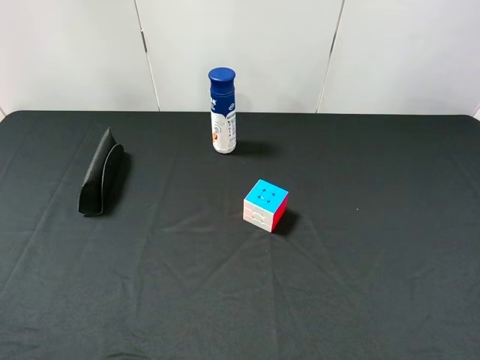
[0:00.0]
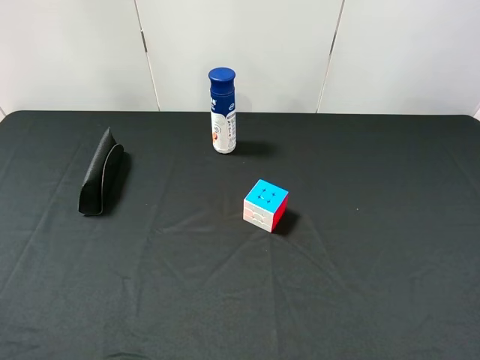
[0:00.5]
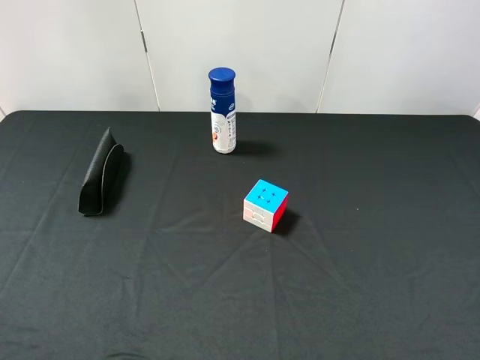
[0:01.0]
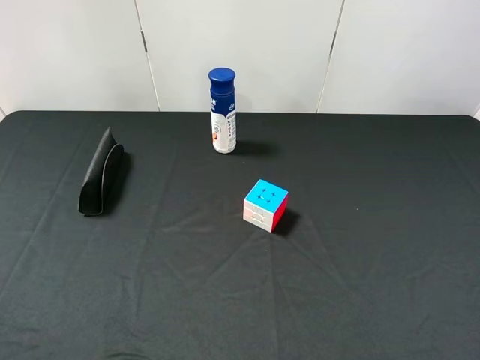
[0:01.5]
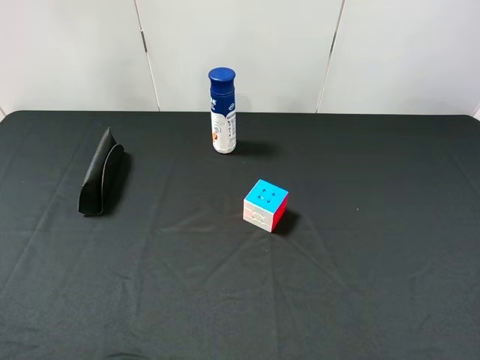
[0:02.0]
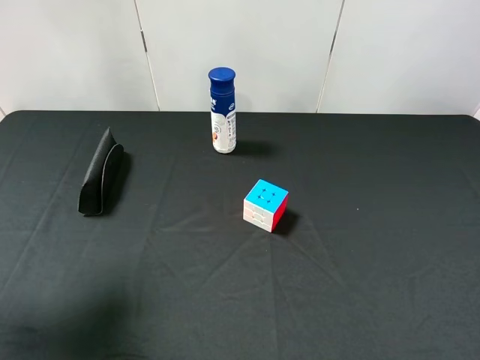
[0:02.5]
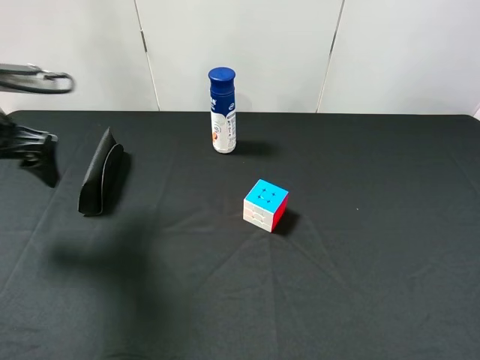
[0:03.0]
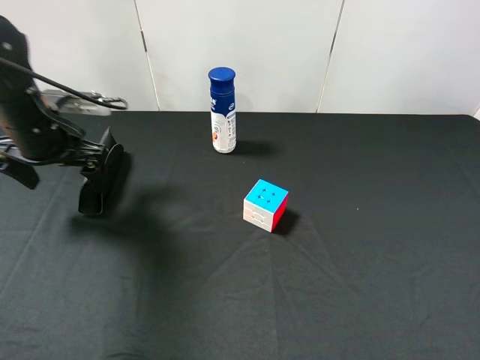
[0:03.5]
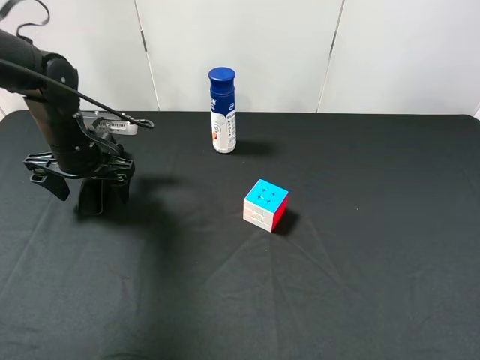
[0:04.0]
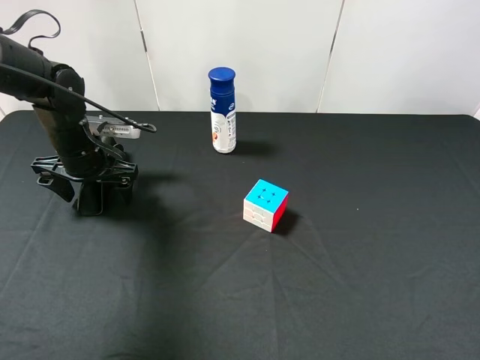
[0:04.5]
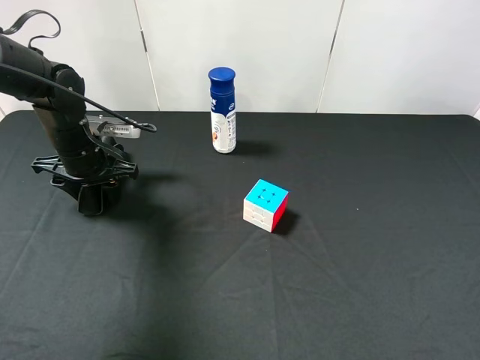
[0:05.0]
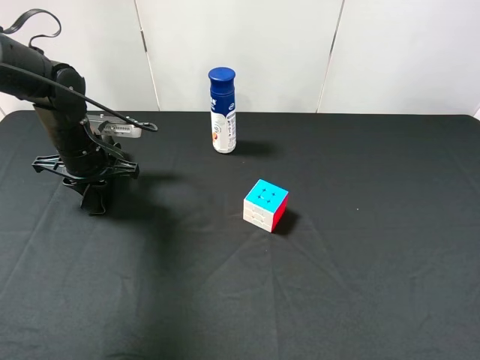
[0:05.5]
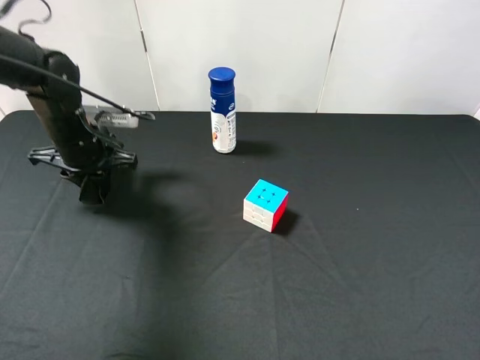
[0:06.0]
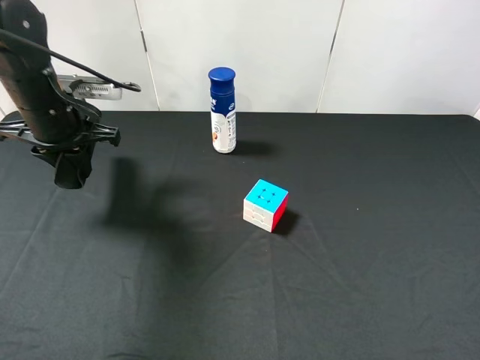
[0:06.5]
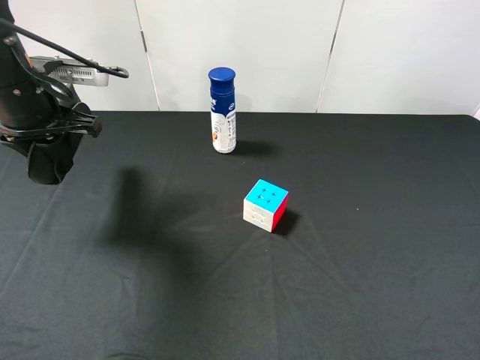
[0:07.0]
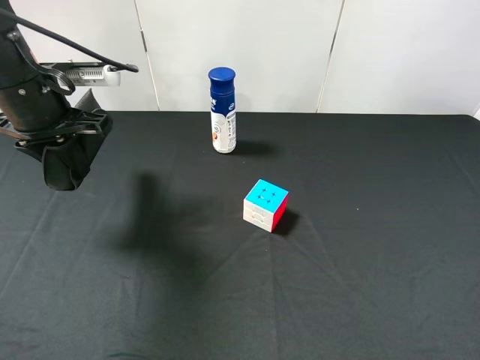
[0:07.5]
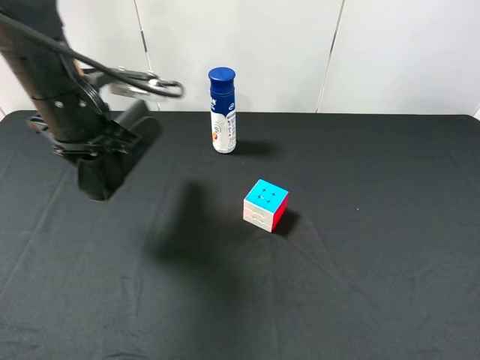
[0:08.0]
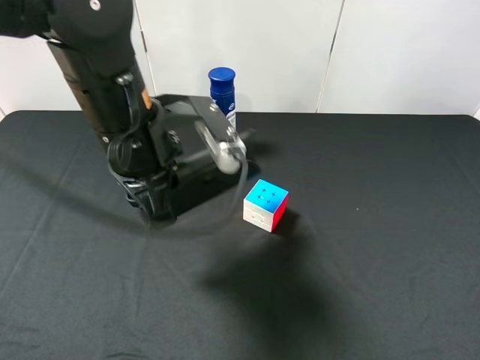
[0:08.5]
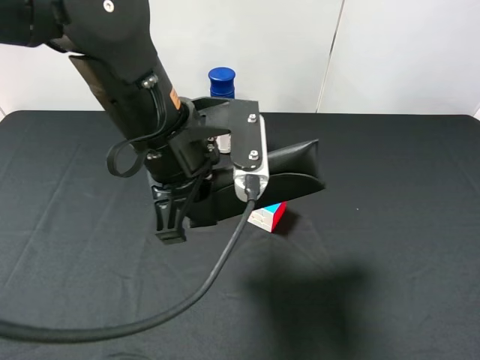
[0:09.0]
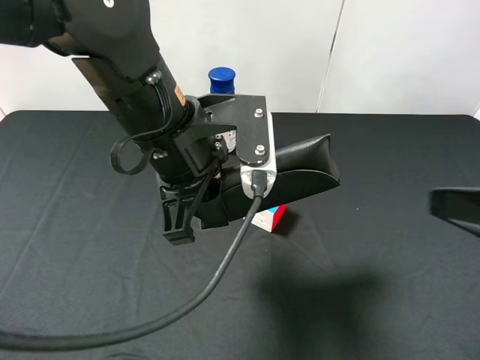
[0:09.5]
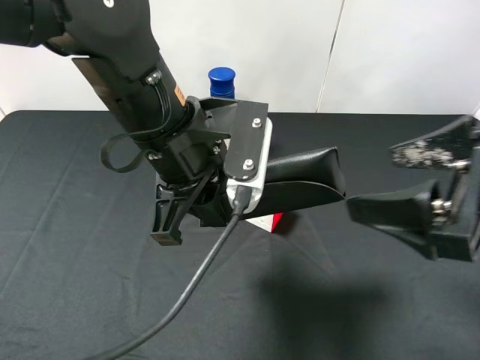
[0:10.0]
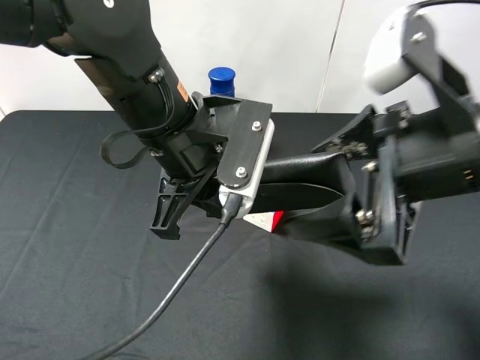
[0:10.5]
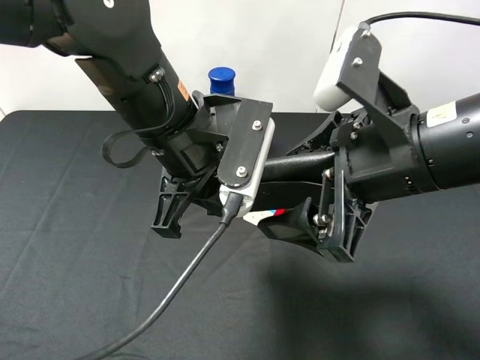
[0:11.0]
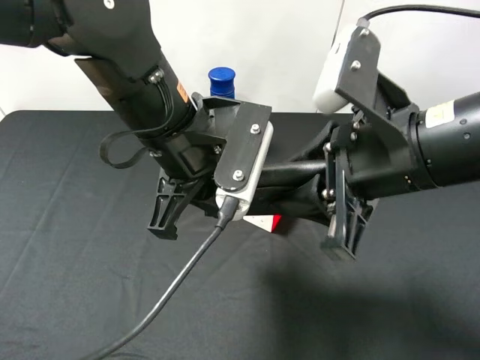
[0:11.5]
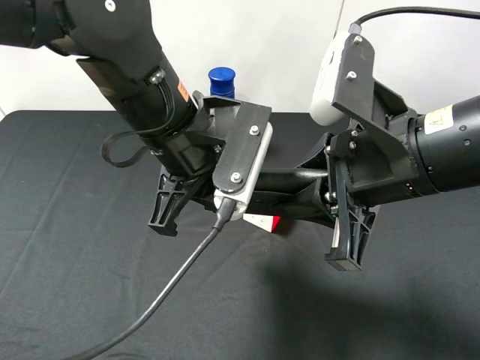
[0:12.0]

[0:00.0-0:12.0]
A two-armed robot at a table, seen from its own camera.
Task of the whole recording: use the left gripper to pick up the item and transfer it from the left gripper to the right gripper.
2.0 to 4.0 s: The left gripper heads forward and downward, covering roughly 35 cm.
4.0 to 6.0 s: The left gripper closes.
6.0 to 8.0 s: The left gripper shifts approximately 15 cm upward, backward and to the right.
8.0 to 10.0 s: The right gripper moves forward and to the left, some 15 cm. Meanwhile the left gripper heads to the right and backward, covering some 15 cm.
10.0 to 12.0 s: The right gripper shifts some 5 cm to the left, and closes up.

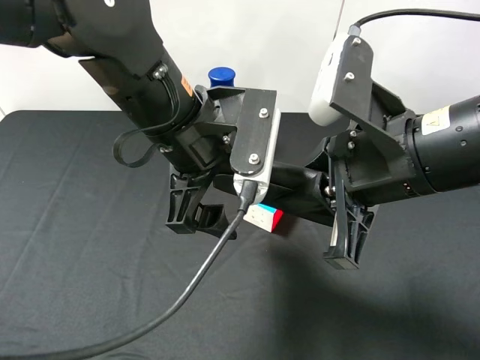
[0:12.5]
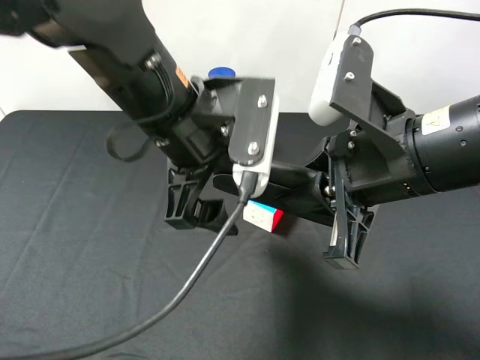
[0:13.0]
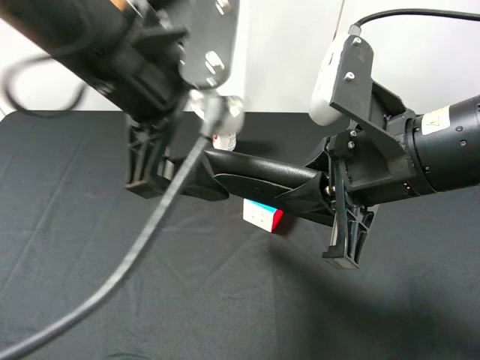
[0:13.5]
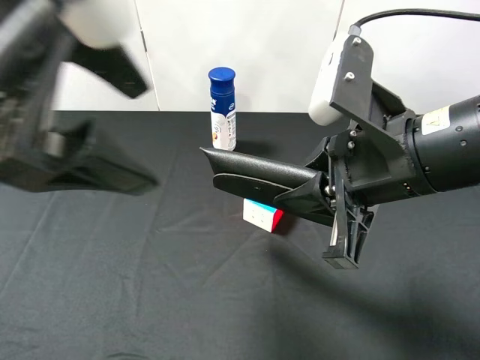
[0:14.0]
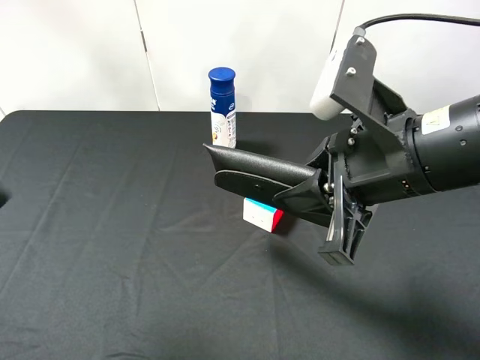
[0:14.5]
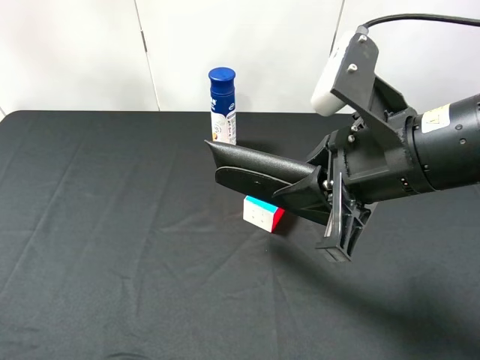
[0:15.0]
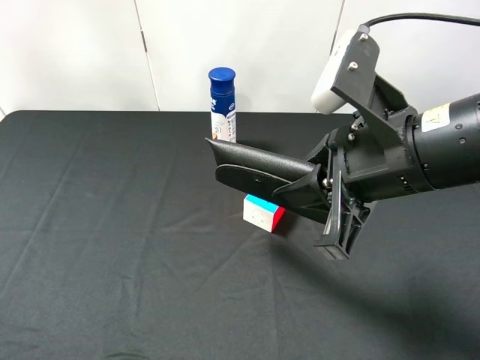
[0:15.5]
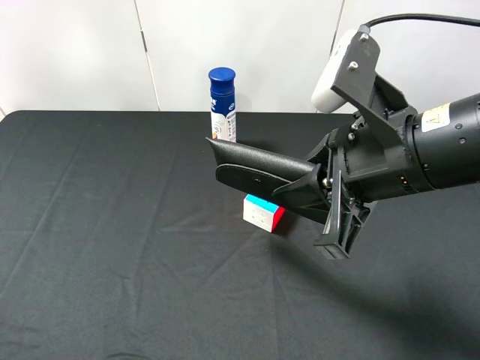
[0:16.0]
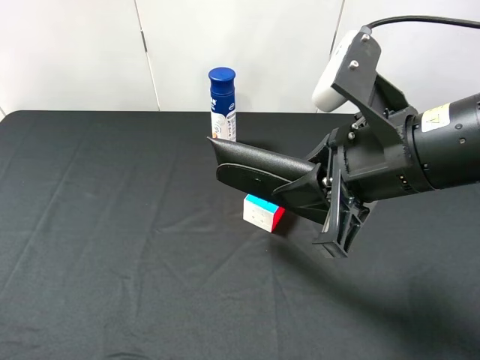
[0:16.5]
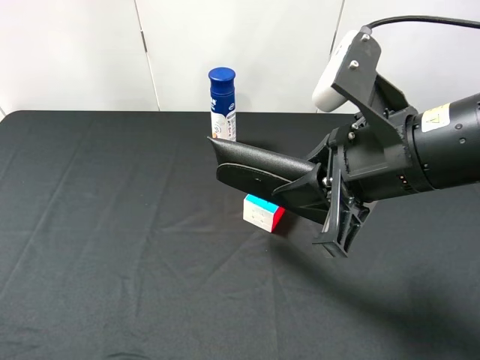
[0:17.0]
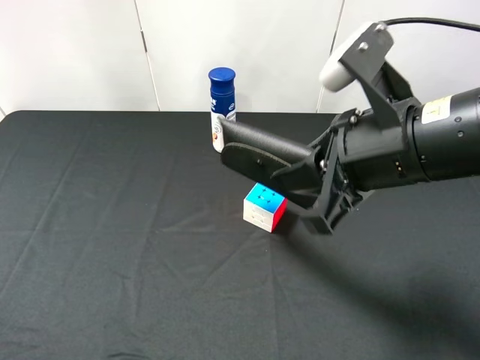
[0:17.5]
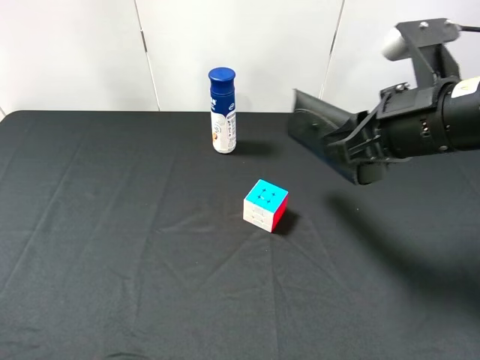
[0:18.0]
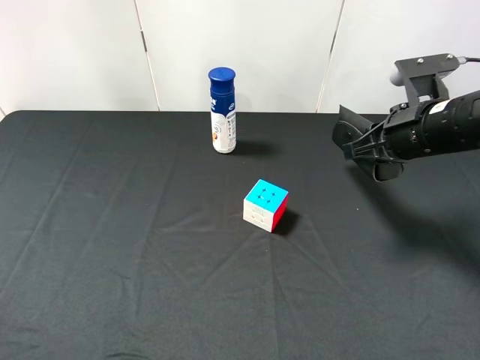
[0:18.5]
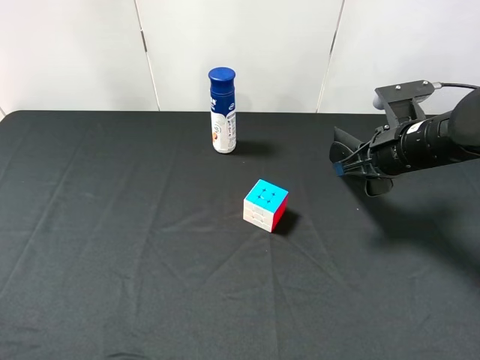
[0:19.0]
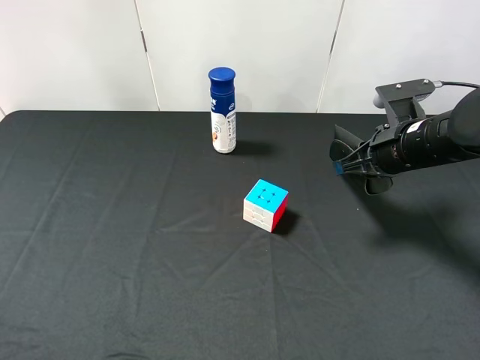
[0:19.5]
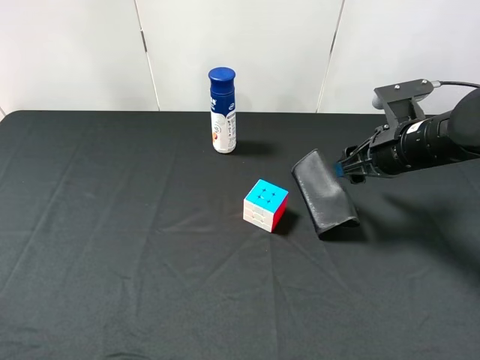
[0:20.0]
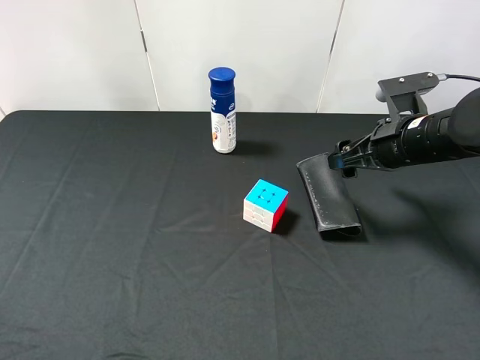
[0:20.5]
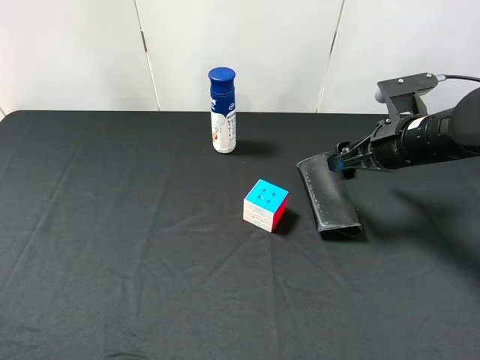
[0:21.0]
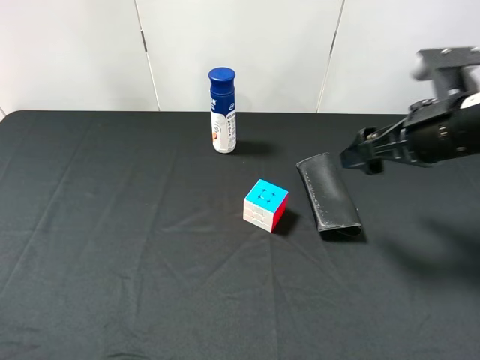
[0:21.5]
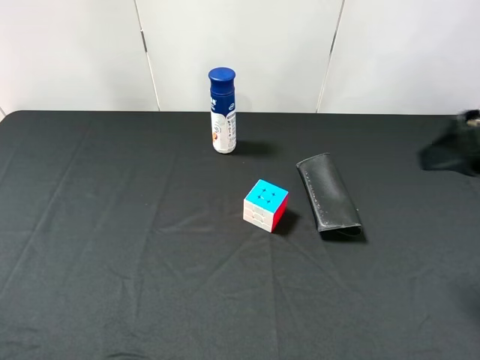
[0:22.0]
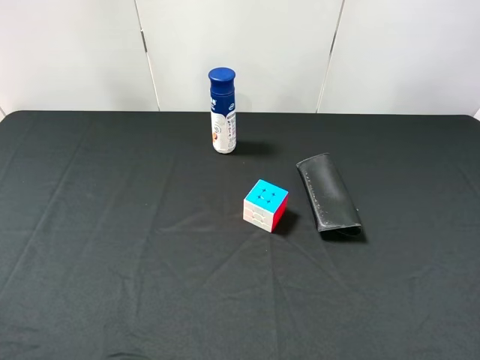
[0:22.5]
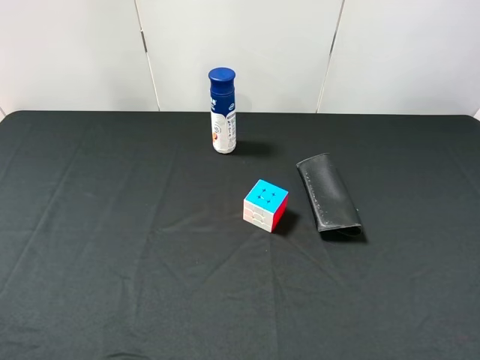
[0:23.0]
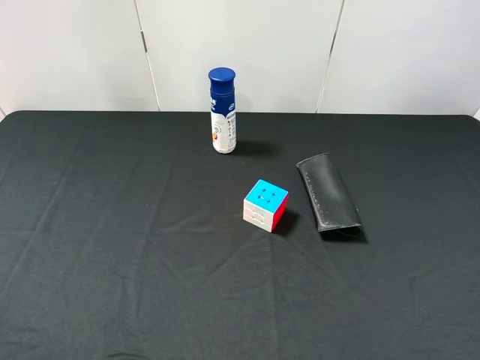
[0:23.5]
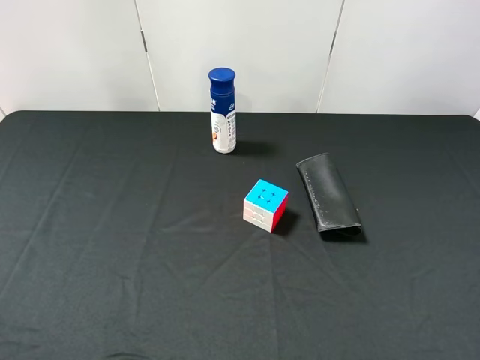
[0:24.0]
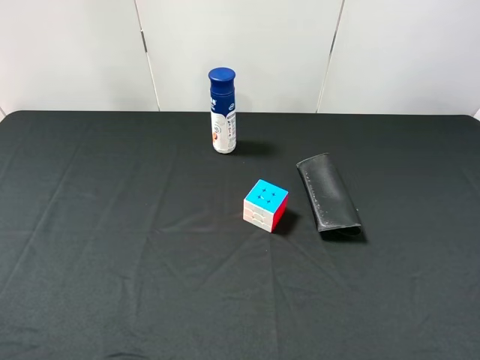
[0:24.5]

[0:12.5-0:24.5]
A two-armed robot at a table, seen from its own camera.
Task of the whole recording: use the left gripper to pick up the item and transfer it from the left gripper to the right gripper.
12.5 to 14.5 s: The left gripper heads to the left, backward and upward, covering some 25 cm.
14.5 to 16.5 s: The left gripper travels backward, to the left and downward by about 15 cm.
16.5 to 18.5 s: The right gripper travels forward, to the right and downward by some 15 cm.
18.5 to 20.5 s: The right gripper opens up.
20.5 to 22.5 s: The right gripper goes some 25 cm backward and upward.

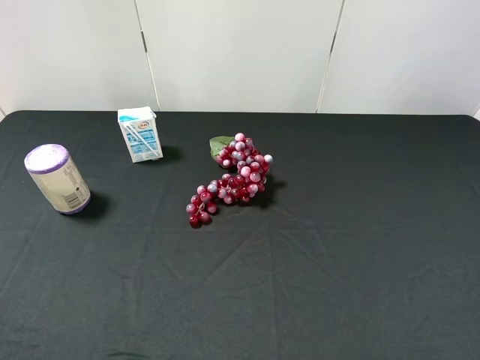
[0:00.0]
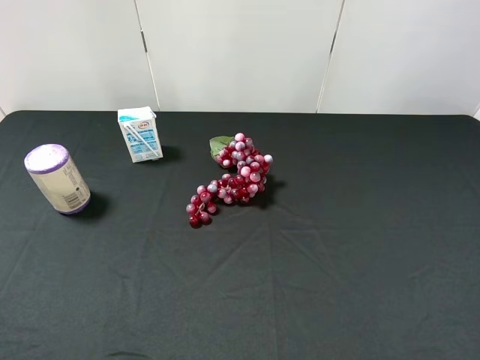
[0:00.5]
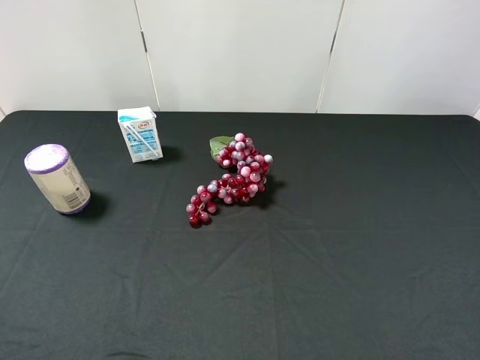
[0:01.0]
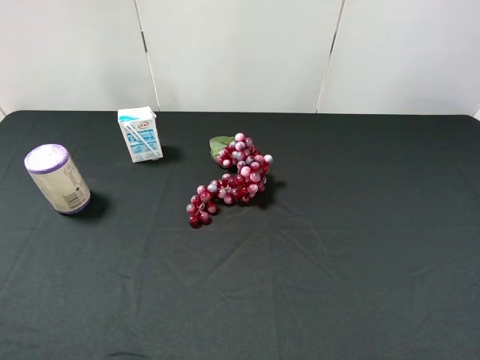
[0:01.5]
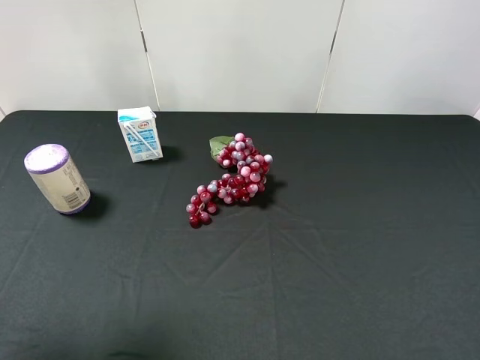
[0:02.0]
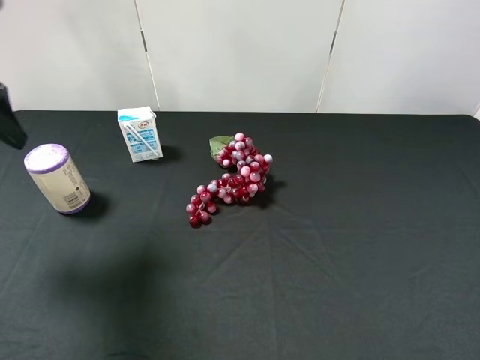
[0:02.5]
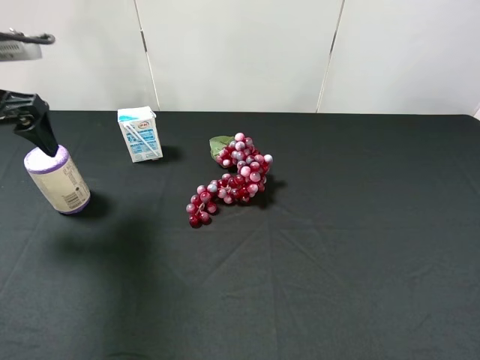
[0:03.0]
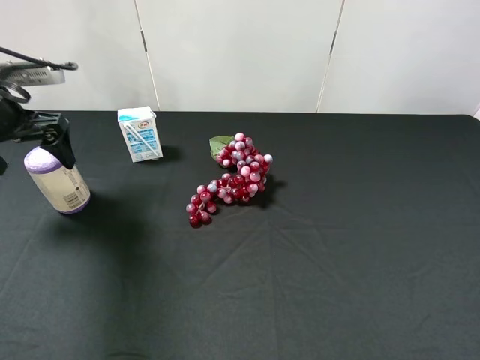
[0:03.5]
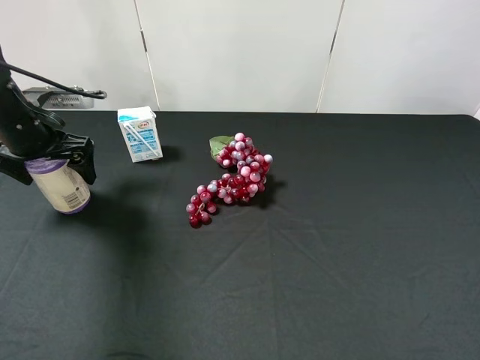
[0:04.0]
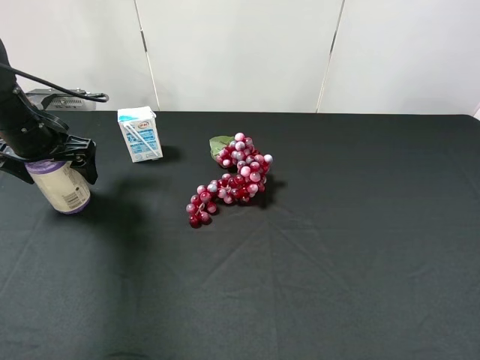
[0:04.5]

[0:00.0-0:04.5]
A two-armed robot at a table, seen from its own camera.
Task of the whole recording: use the left gripper to pick up the item and transfer it from the left gripper to the right gripper.
0.0 to 2.0 s: The left gripper shifts approximately 15 cm forward and upward.
2.0 to 4.5 s: The left gripper is displaced forward and downward by approximately 30 cm.
